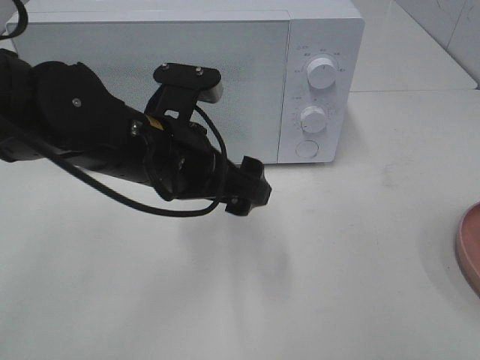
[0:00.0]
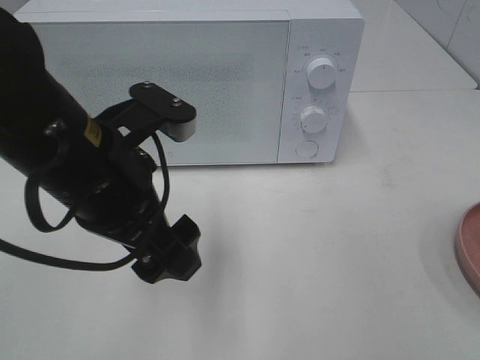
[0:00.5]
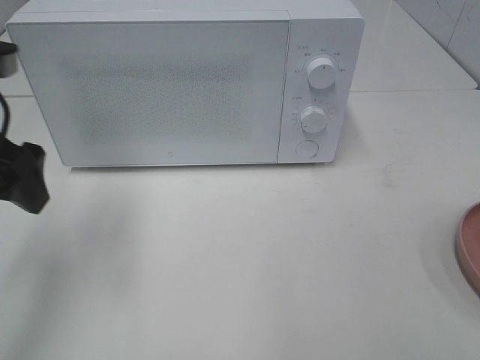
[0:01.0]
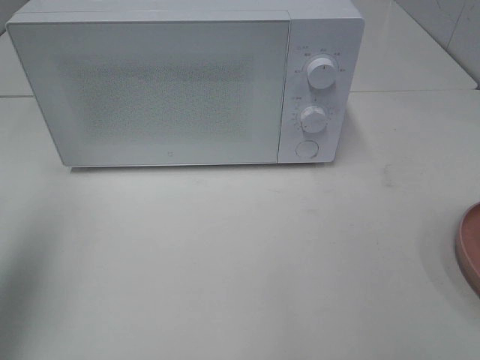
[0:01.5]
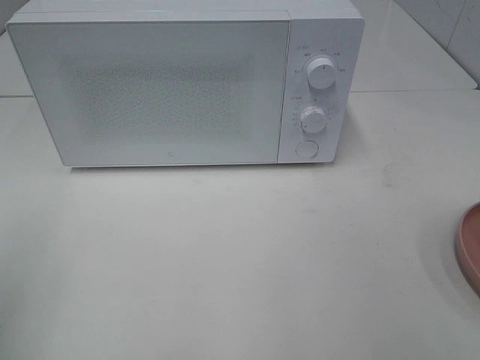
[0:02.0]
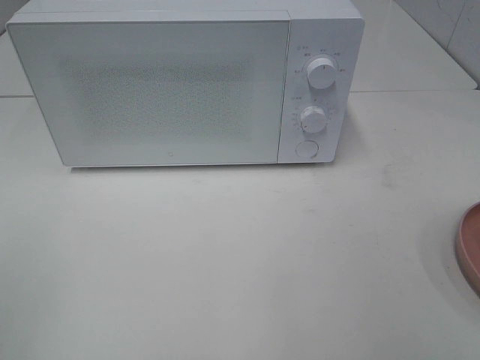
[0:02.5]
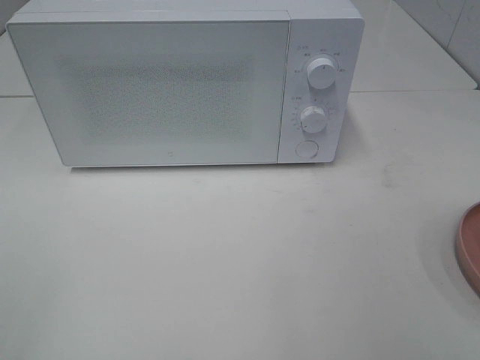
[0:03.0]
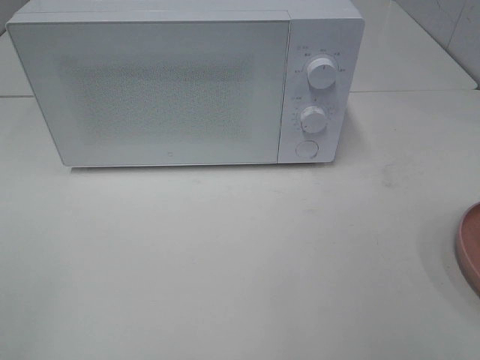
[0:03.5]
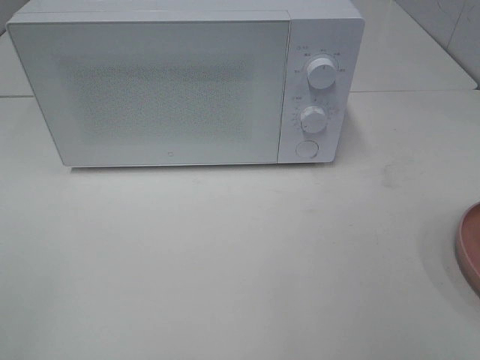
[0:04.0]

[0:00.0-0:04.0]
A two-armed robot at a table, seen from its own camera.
Task of the whole recording: Heat the burger.
0:00.0 to 0:02.0: The left gripper goes approximately 30 cm to the left and backward.
